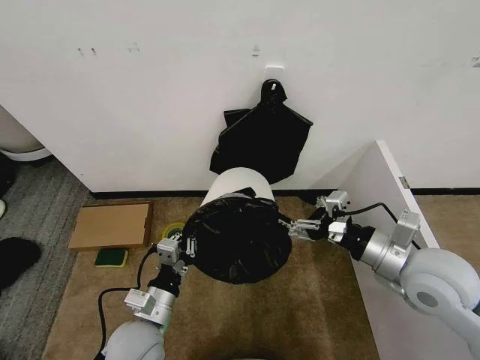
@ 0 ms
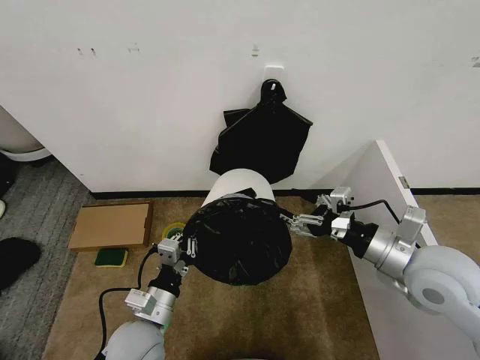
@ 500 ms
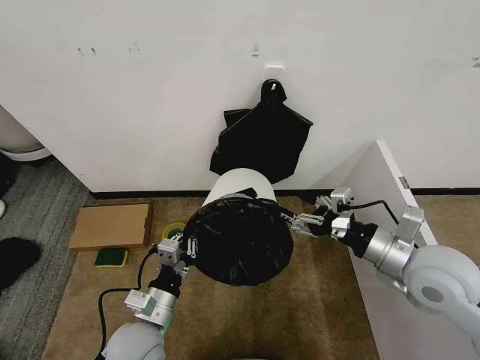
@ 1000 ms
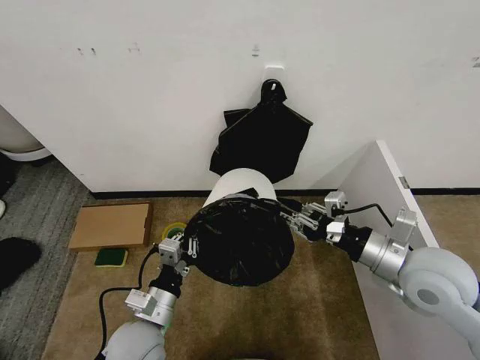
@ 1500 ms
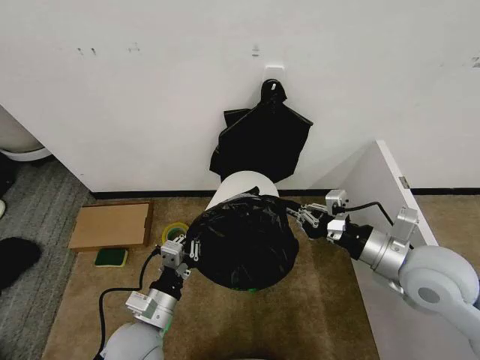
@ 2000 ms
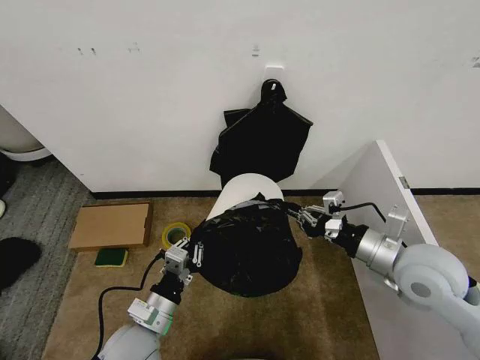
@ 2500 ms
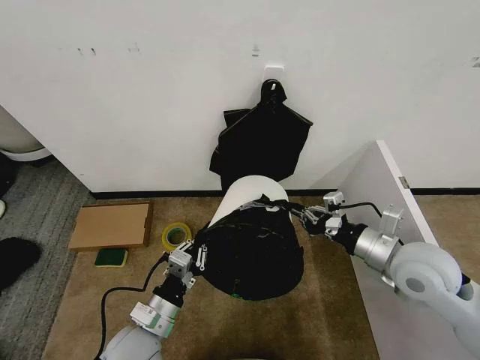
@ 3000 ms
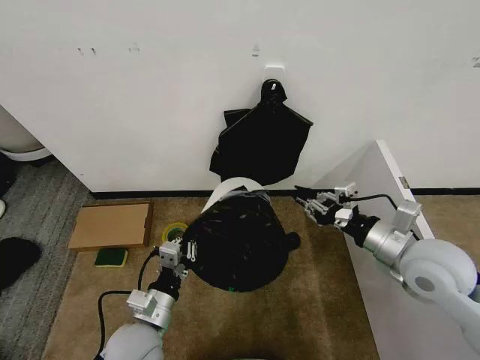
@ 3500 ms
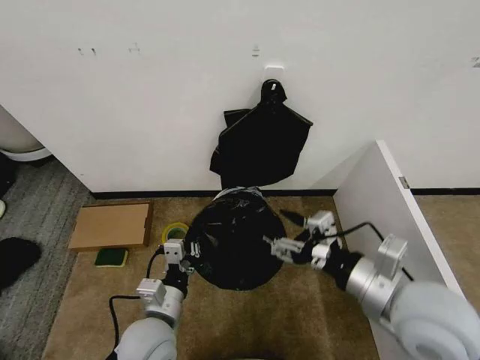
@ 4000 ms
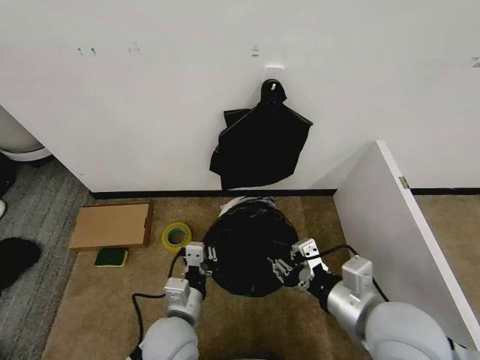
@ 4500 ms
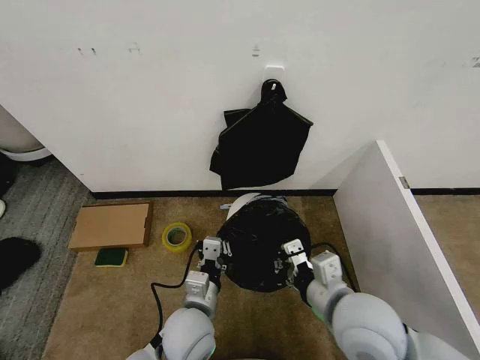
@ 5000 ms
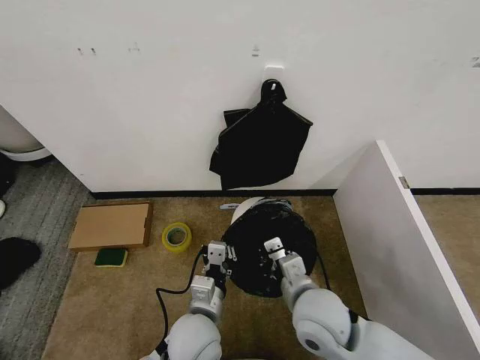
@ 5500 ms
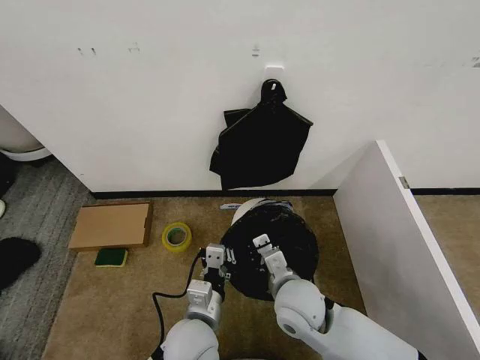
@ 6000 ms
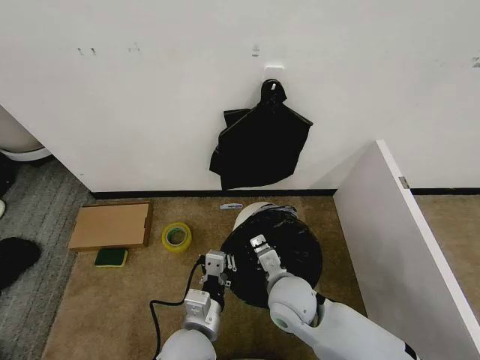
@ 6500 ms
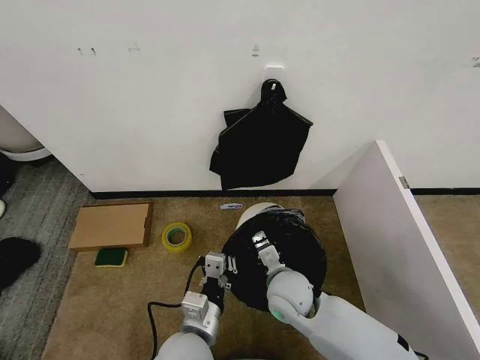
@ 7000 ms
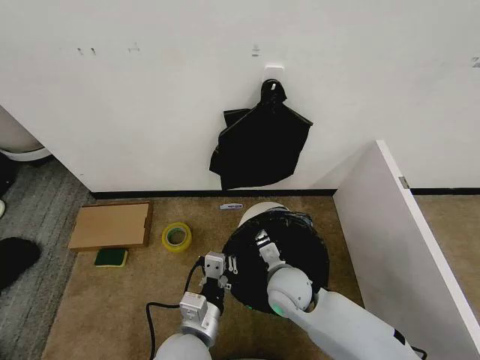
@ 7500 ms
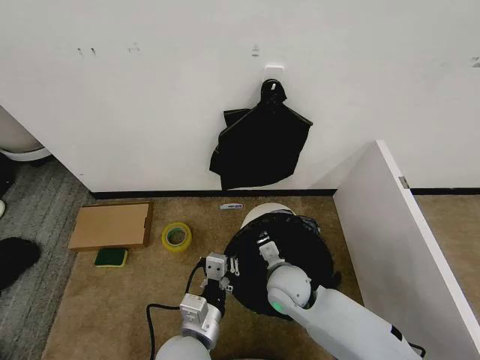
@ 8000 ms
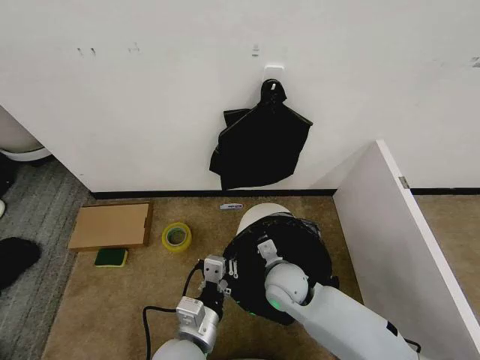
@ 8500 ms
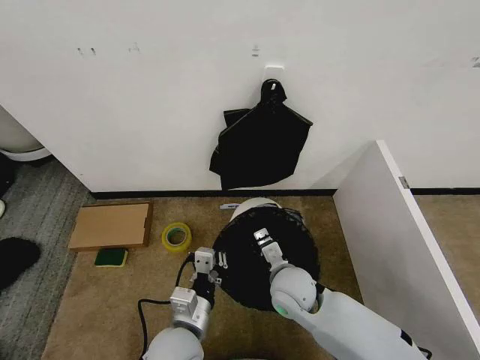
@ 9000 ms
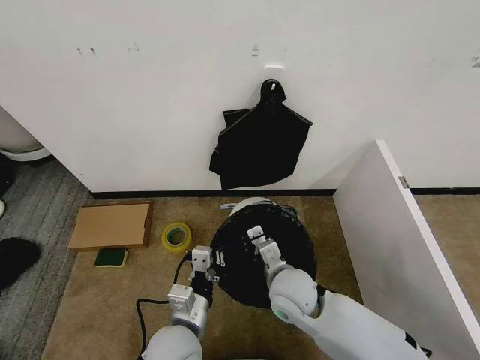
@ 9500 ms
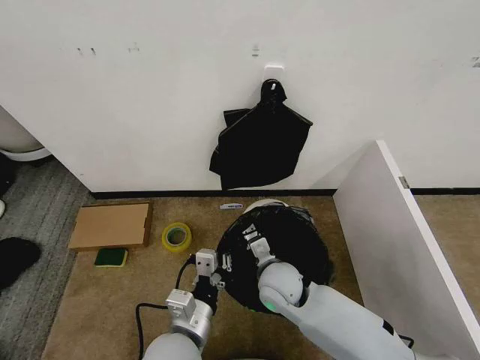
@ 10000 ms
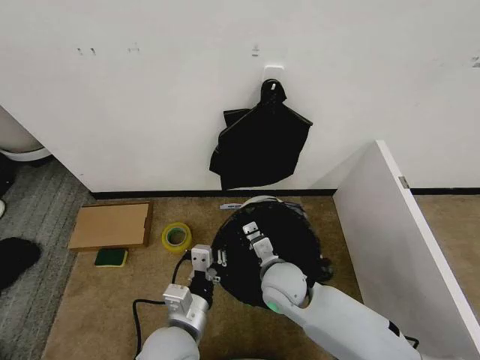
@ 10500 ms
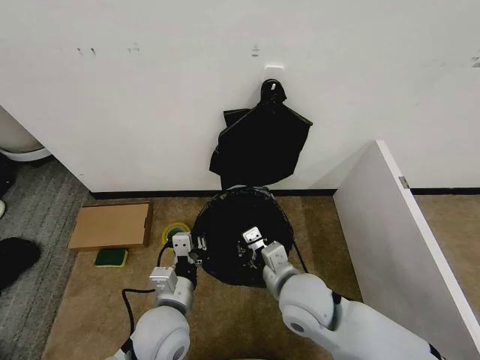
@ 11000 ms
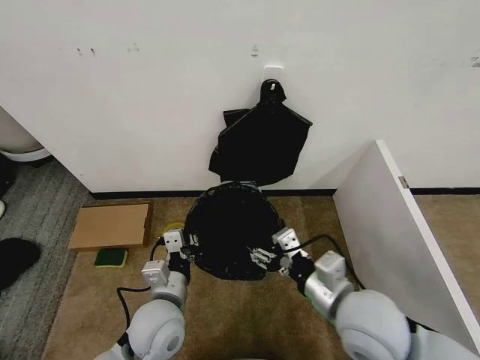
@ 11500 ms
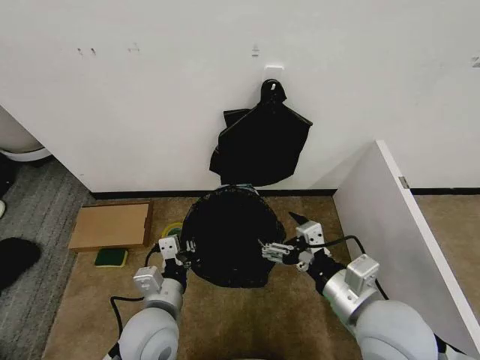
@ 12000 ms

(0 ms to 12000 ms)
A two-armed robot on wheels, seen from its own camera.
Task of the whole recording: Place the garbage bag over the trash bin.
0 ms - 2000 ms: The right gripper closes.
2000 ms - 4000 ms: The right gripper travels backward by approximately 5 cm, and opens its fingers.
4000 ms - 6000 ms: The right gripper moves to the left, downward and forward, approximately 20 cm, and closes its fingers. Meanwhile the left gripper heads to the right, covering some 10 cm.
6000 ms - 8000 ms: The right gripper shifts roughly 5 cm forward.
8000 ms - 10000 ms: There are only small adjustments of the grippers.
10000 ms - 12000 ms: The right gripper is displaced backward, to the right and upward by about 20 cm, and opens its fingers. Meanwhile the left gripper shifts by some 5 cm.

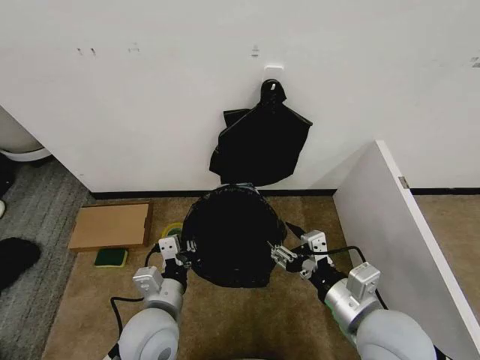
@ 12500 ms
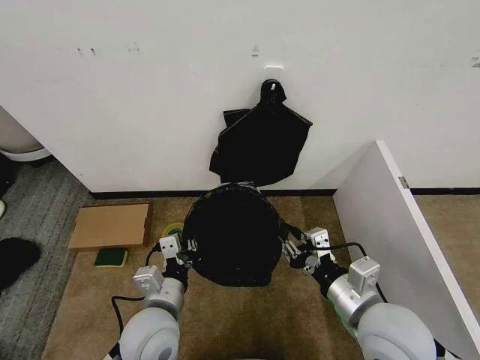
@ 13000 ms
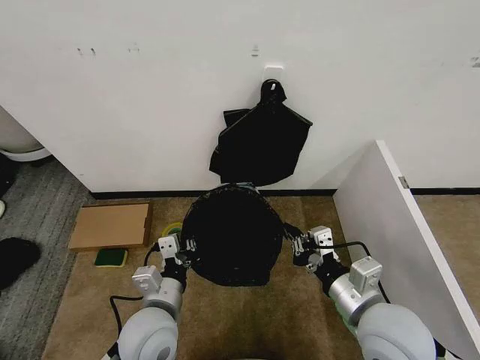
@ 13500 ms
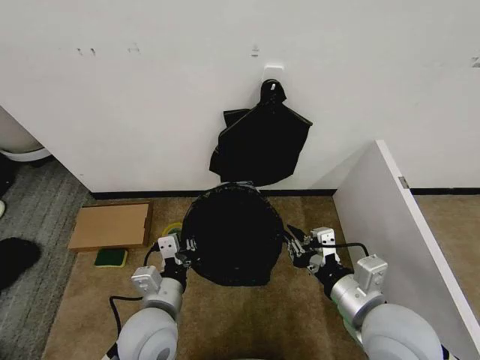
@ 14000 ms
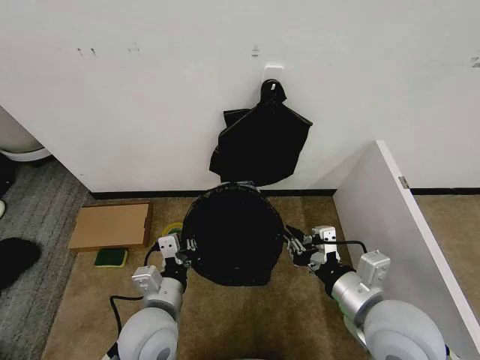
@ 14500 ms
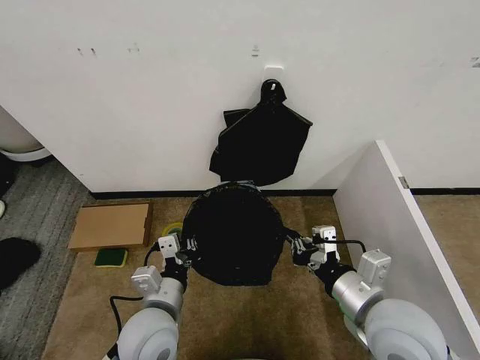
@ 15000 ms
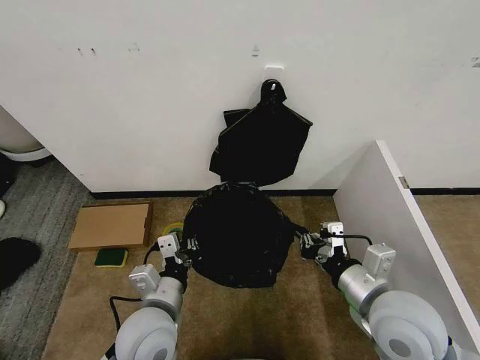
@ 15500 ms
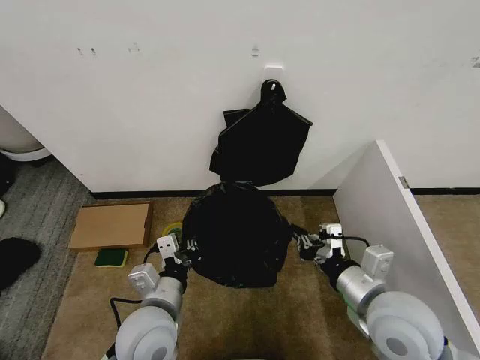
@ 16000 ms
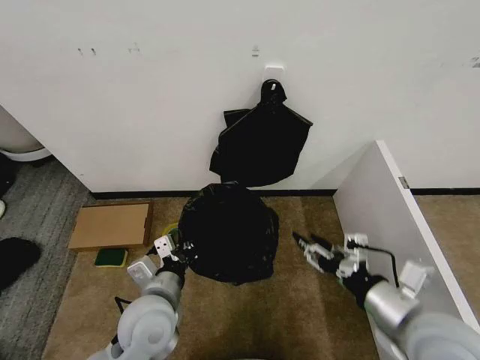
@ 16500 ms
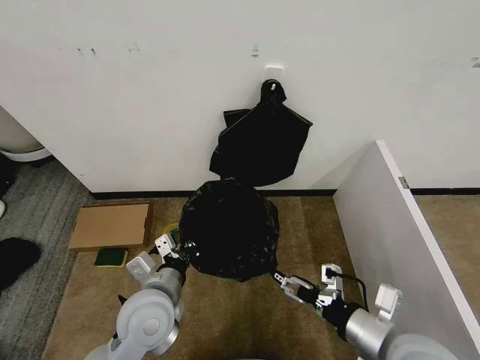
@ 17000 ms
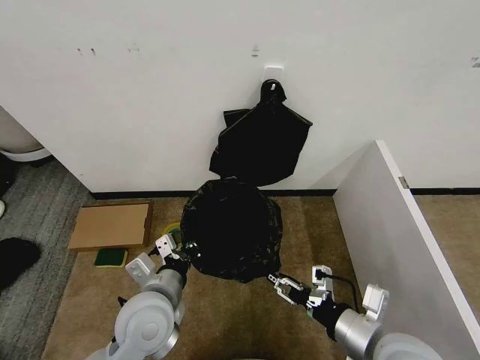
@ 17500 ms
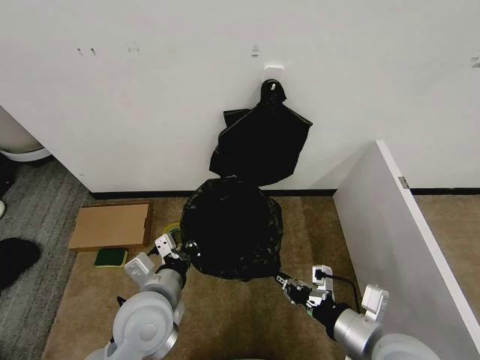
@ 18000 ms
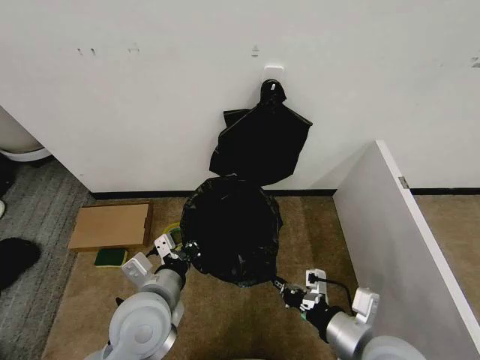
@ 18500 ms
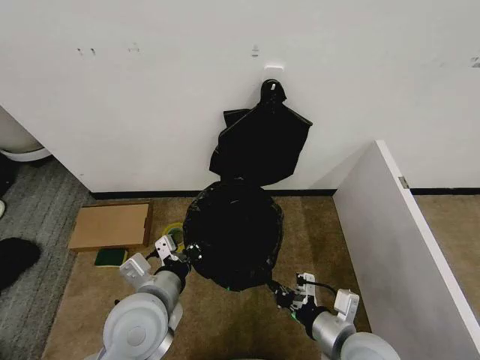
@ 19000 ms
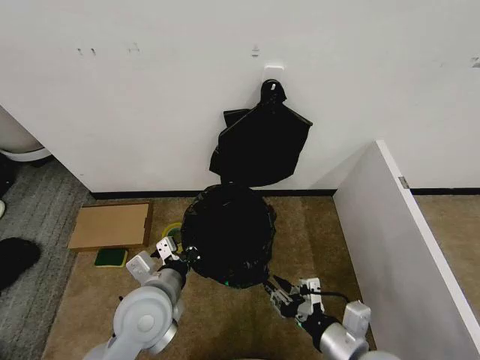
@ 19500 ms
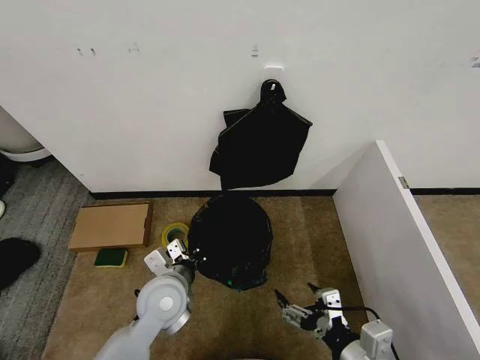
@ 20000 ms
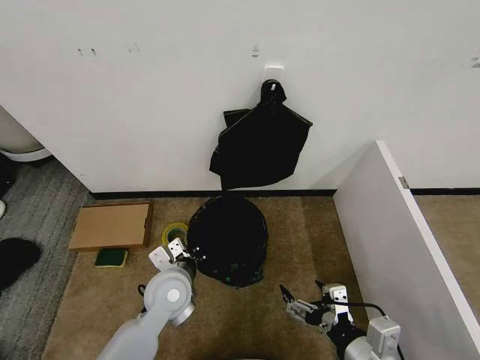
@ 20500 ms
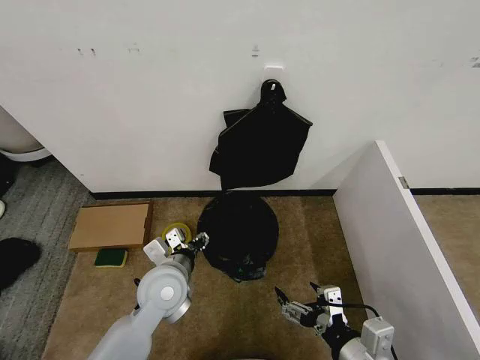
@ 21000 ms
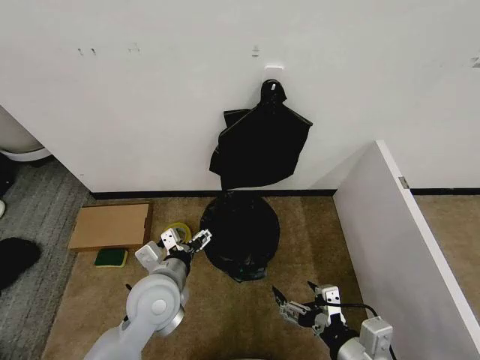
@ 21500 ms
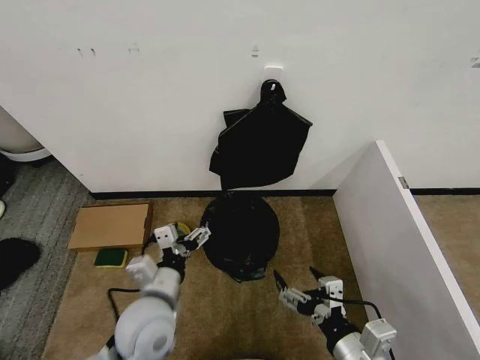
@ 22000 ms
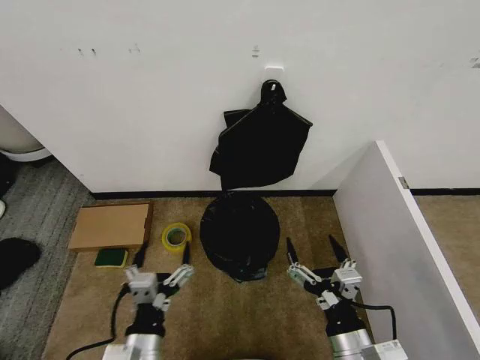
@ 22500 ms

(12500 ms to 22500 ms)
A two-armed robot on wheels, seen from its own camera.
Task of the whole recording: Place the garbage bag over the trash bin.
12500 ms - 14500 ms: The right gripper closes.
14500 ms - 16500 ms: The right gripper moves about 5 cm, and opens its fingers.
16500 ms - 18500 ms: The right gripper is displaced downward by some 5 cm, and closes.
18500 ms - 20500 ms: The left gripper goes about 10 cm forward and downward. Meanwhile the right gripper opens.
20500 ms - 22500 ms: The left gripper goes approximately 15 cm backward, and opens.

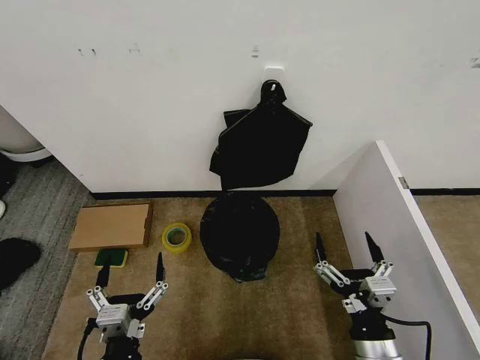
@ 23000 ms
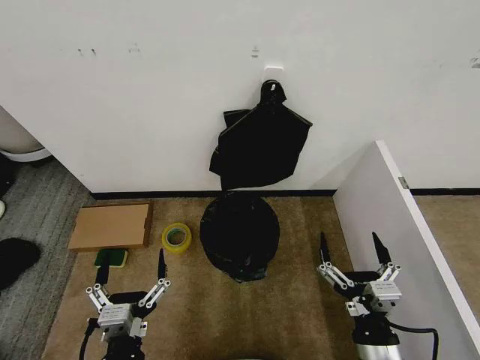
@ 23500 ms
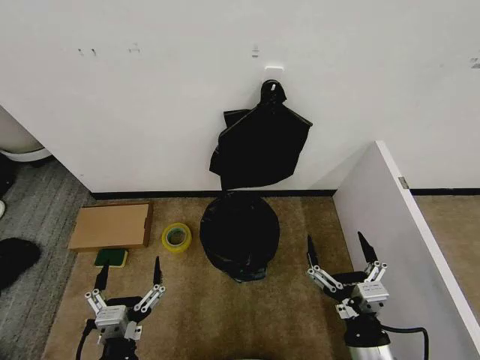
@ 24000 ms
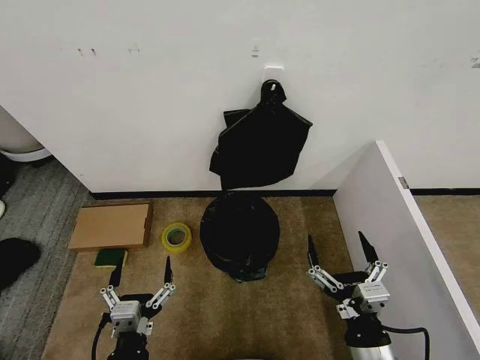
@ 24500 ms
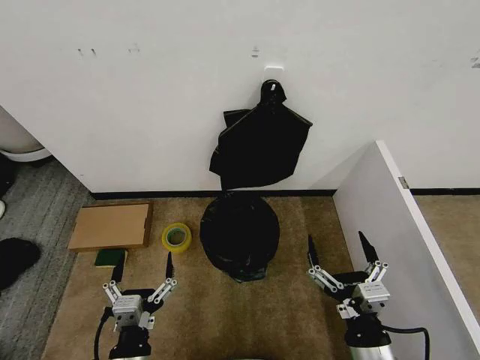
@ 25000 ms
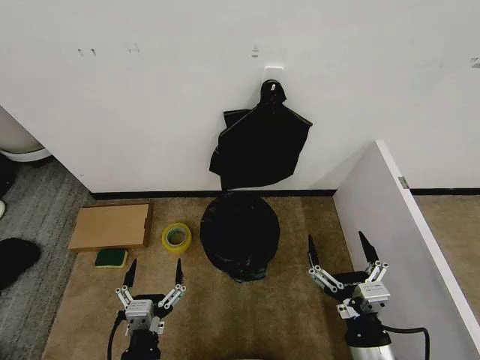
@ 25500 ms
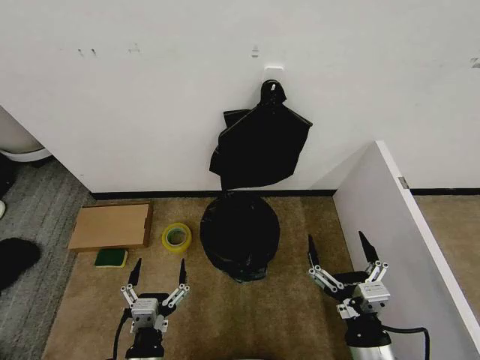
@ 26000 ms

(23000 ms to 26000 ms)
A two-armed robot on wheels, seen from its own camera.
Task of the whole recording: Place the garbage bag over the trash bin.
23000 ms - 26000 ms: The grippers stay close to where they were, moving slightly.
